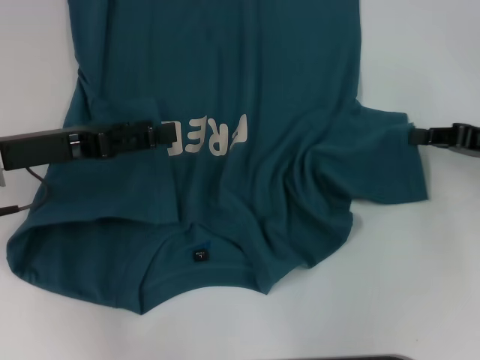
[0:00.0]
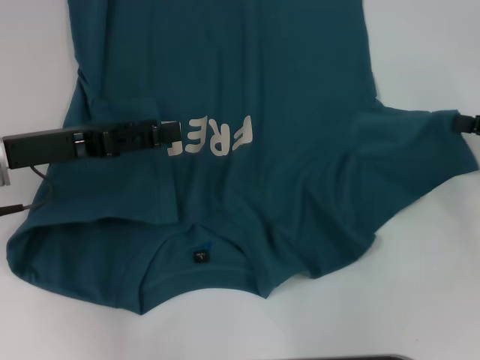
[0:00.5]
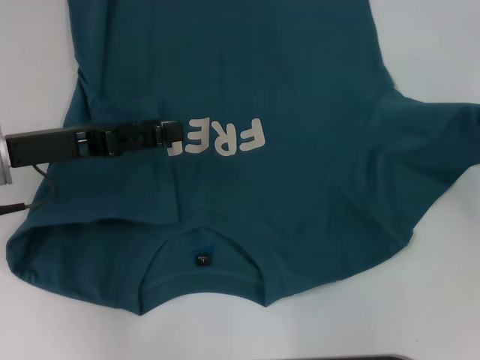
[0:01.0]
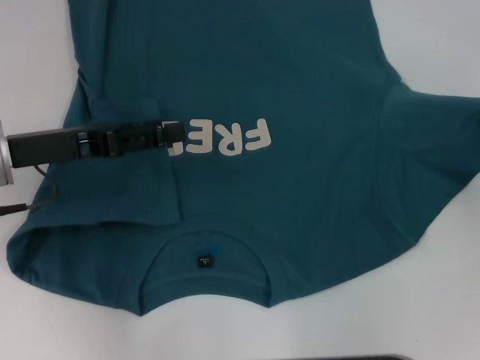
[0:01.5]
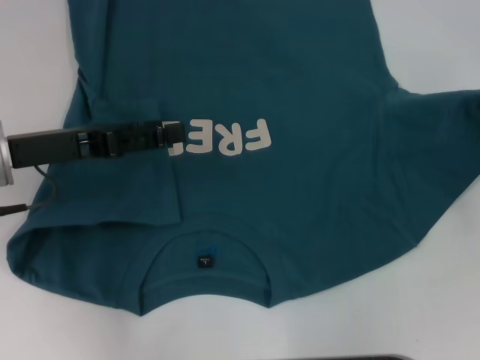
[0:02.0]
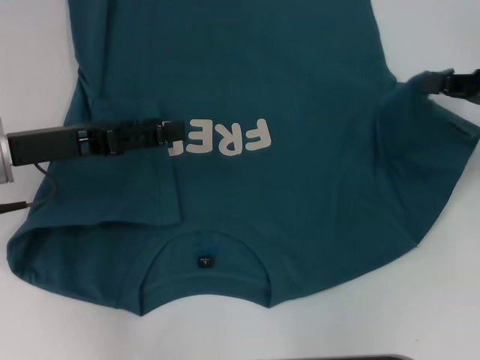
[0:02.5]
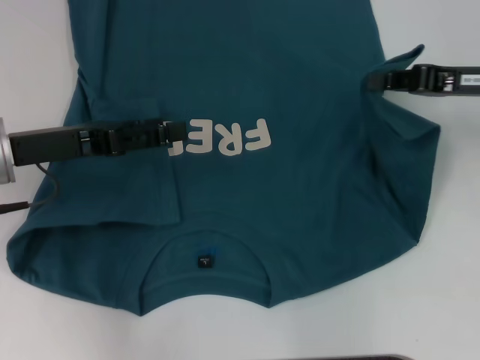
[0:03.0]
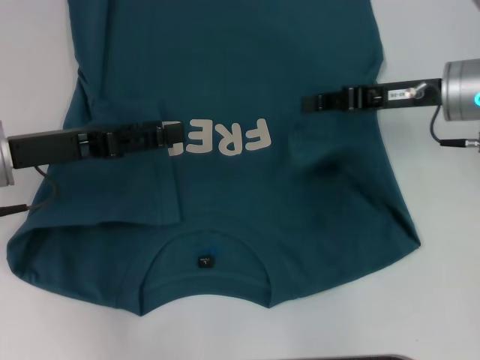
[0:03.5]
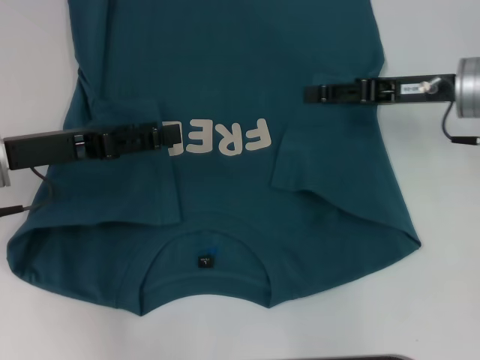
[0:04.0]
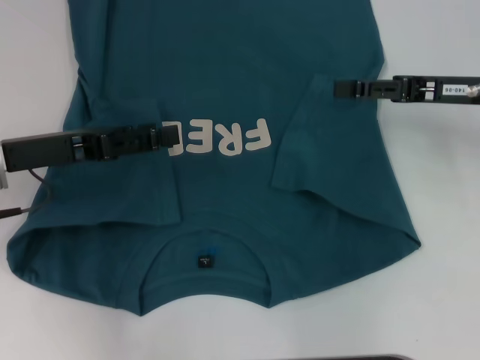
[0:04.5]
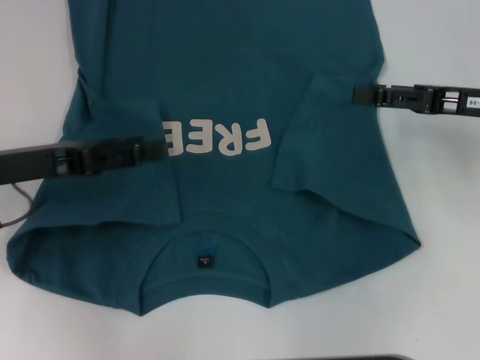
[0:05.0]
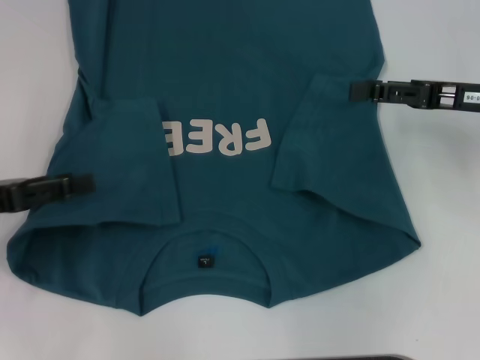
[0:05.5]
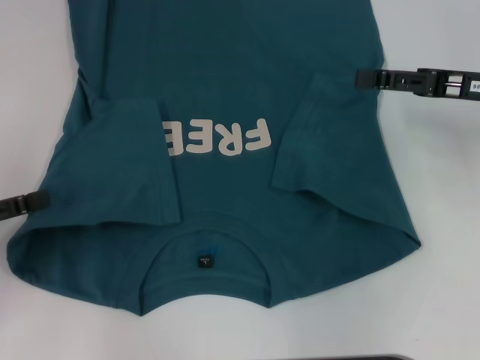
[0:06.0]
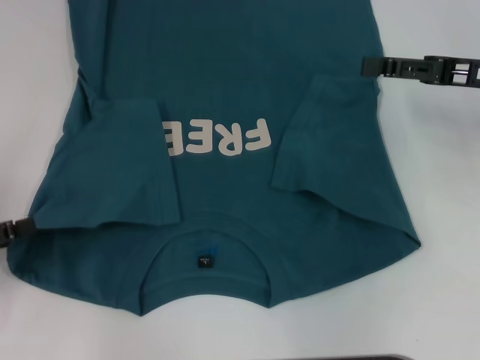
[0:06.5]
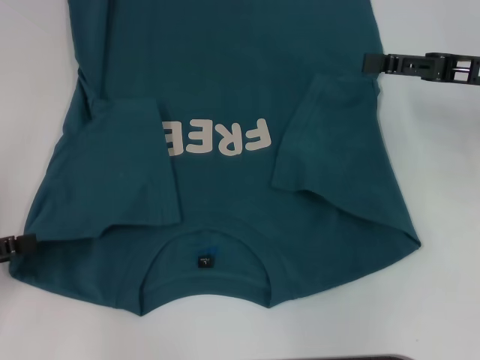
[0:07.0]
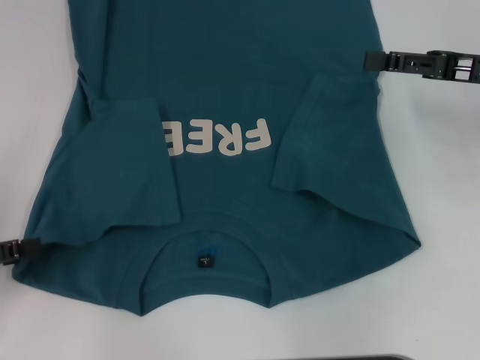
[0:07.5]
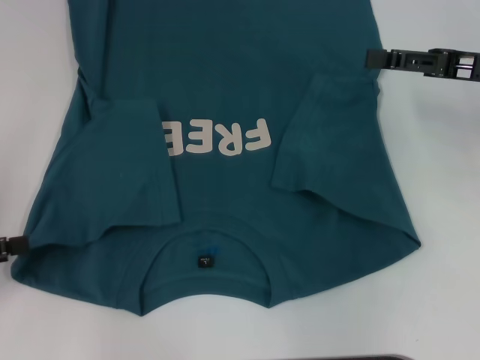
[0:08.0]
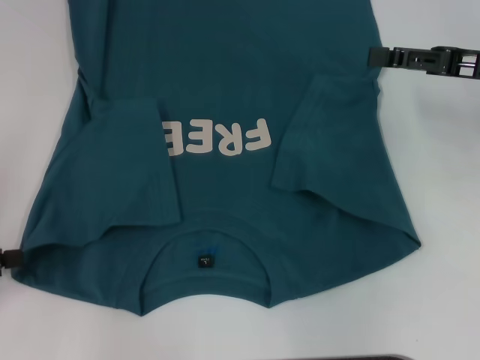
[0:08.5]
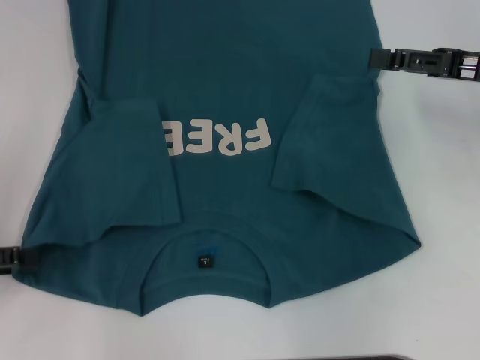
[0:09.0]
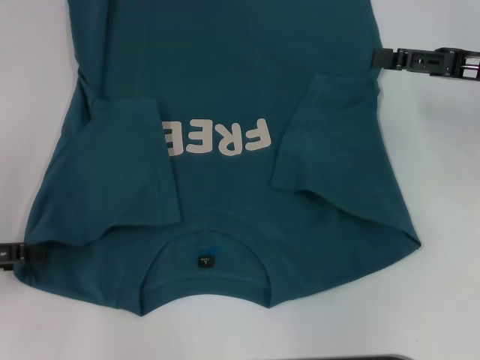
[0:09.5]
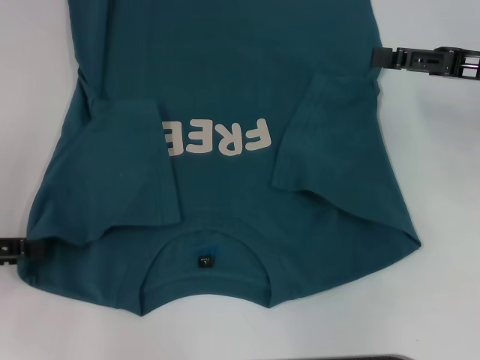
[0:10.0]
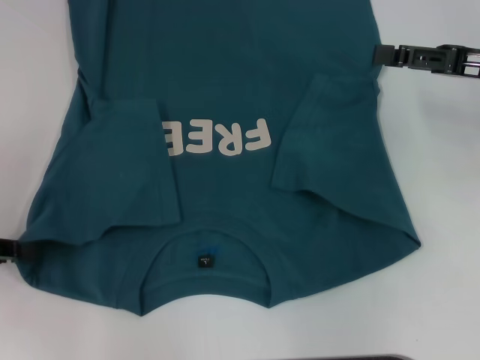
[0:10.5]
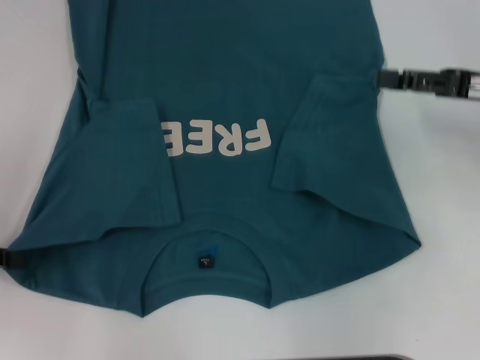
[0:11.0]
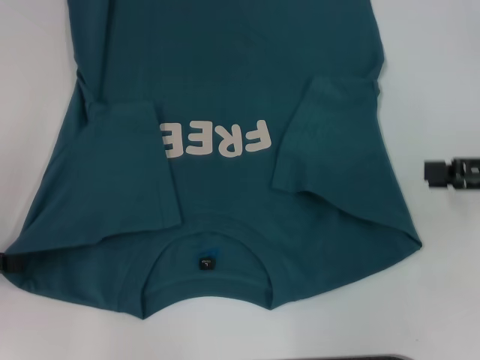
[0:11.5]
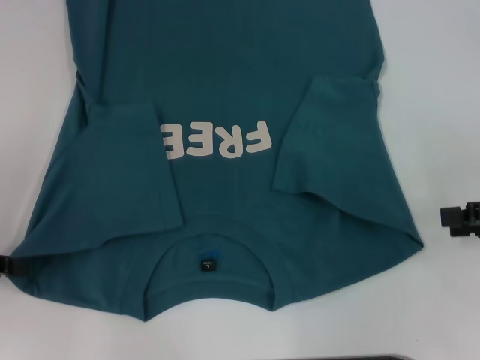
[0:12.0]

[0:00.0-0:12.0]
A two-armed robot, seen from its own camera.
Step, 0:00.0 to 0:03.5: Fold the bottom right sleeve to the right.
Step, 0:04.0 to 0:10.5: Grab the bottom left corner with your left hand.
0:00.0 to 0:02.0: The right gripper travels to the right by about 5 cm.
0:02.0 to 0:04.0: The right gripper moves to the left and forward, about 15 cm, and opens its fingers.
0:04.0 to 0:06.0: The right gripper moves about 5 cm, while the left gripper moves to the left and backward, roughly 15 cm.
0:06.0 to 0:08.0: The grippers move only a little.
0:08.0 to 0:10.0: The grippers stay close to where they were, moving slightly.
0:10.0 to 0:12.0: The left gripper closes up. Meanwhile the right gripper heads backward and to the right, covering roughly 10 cm.

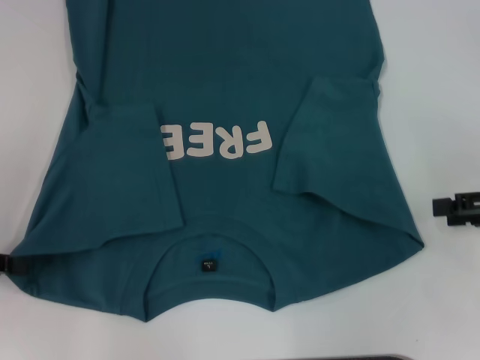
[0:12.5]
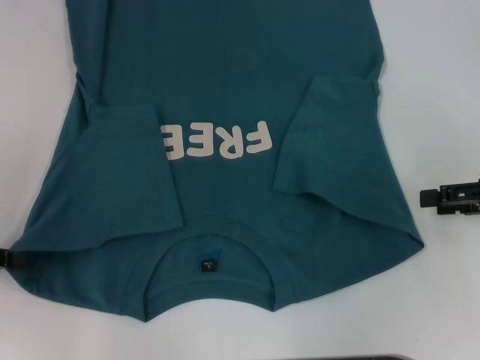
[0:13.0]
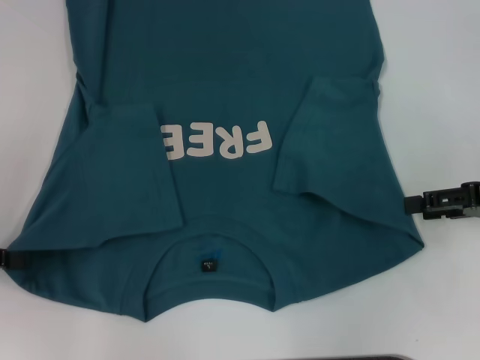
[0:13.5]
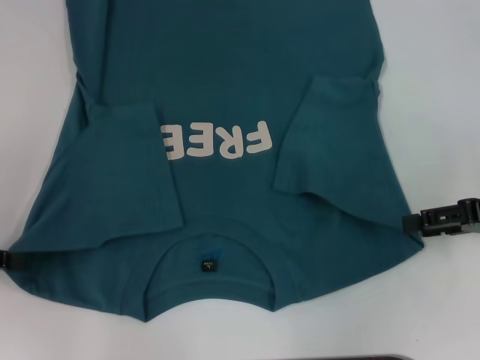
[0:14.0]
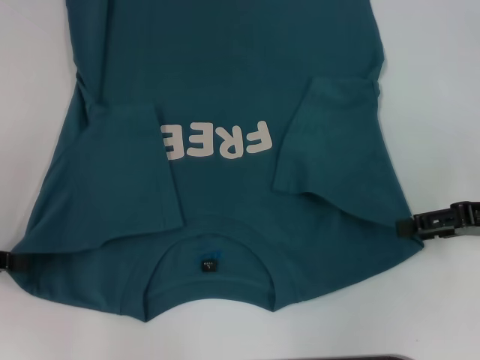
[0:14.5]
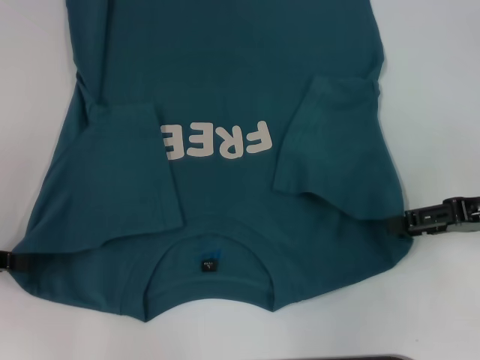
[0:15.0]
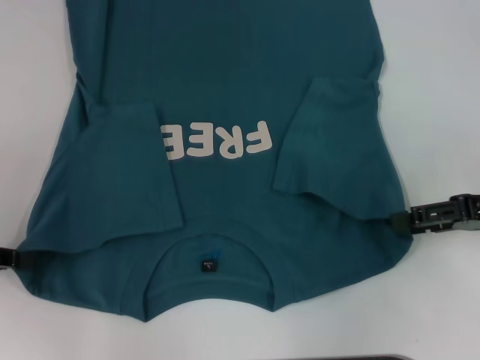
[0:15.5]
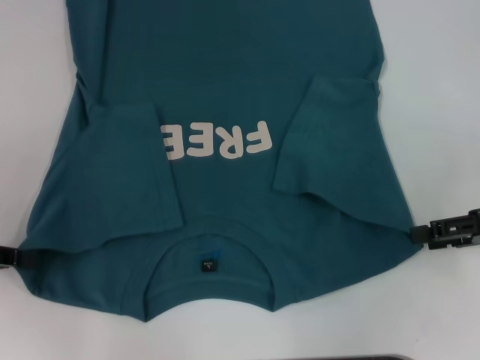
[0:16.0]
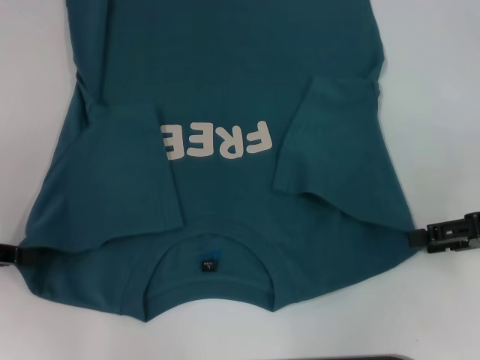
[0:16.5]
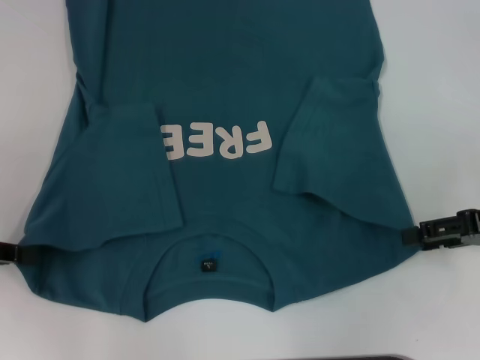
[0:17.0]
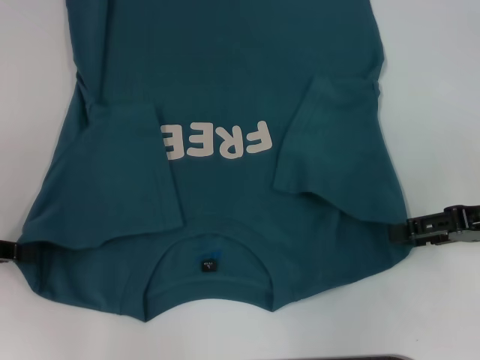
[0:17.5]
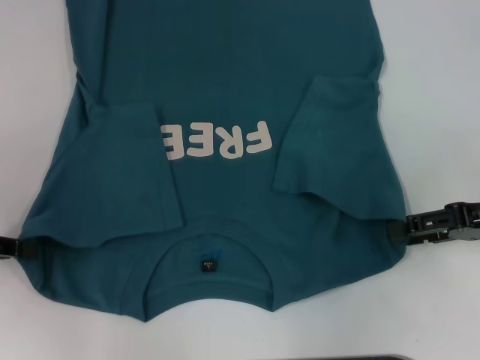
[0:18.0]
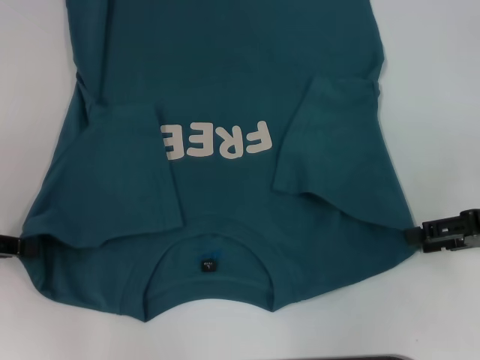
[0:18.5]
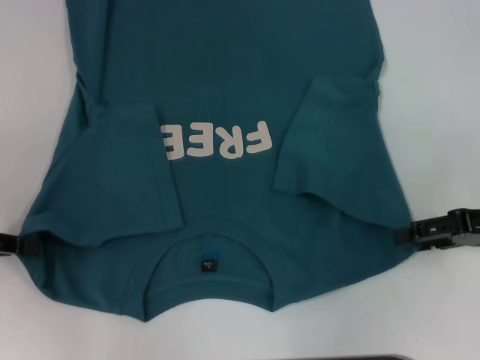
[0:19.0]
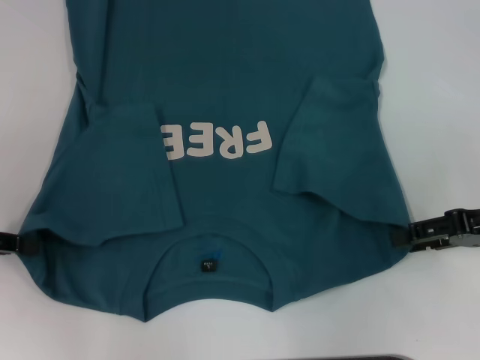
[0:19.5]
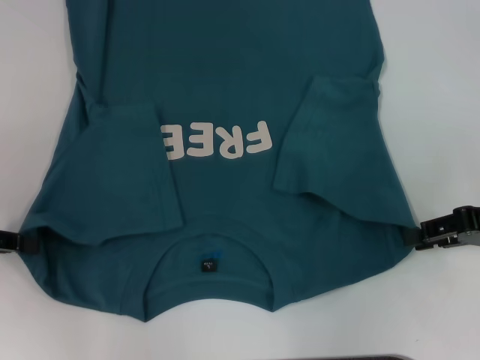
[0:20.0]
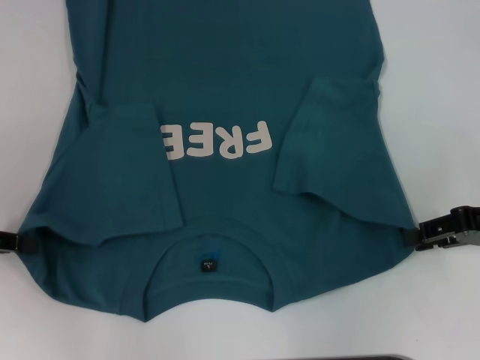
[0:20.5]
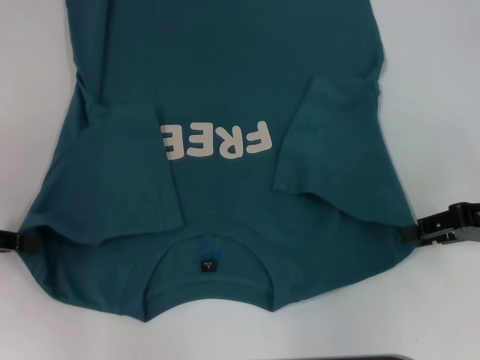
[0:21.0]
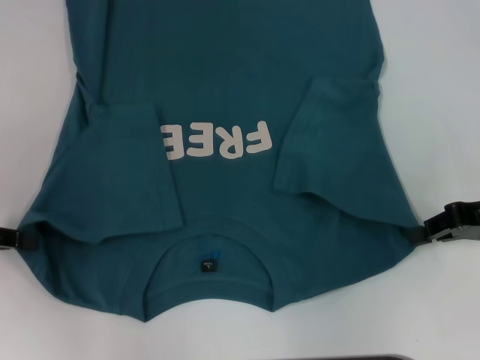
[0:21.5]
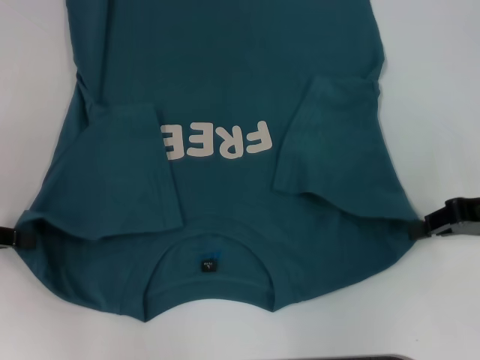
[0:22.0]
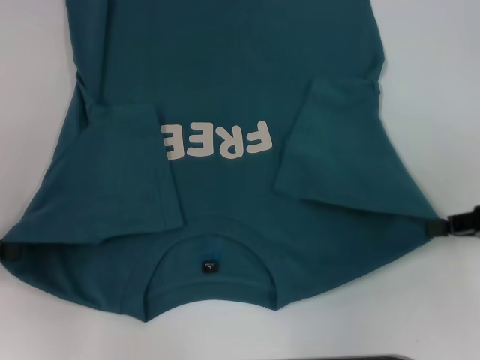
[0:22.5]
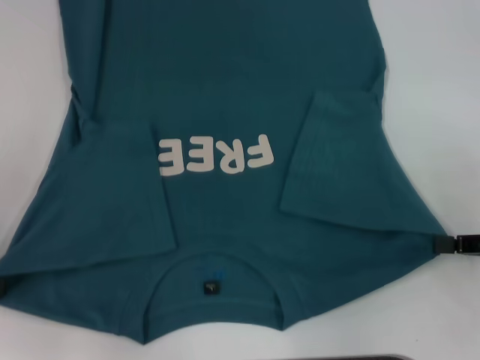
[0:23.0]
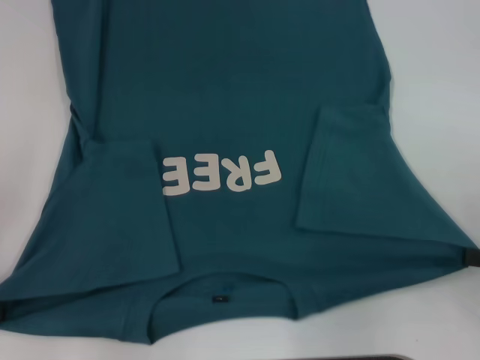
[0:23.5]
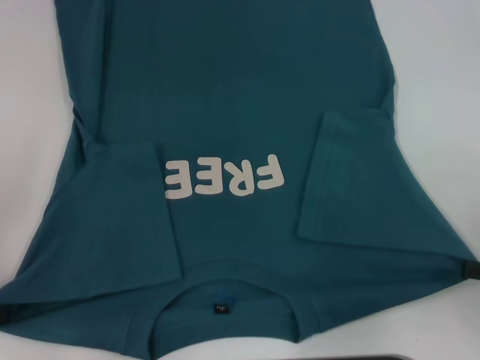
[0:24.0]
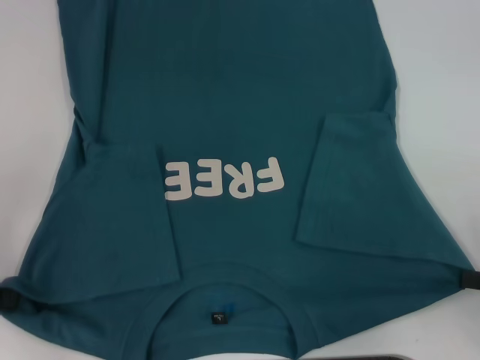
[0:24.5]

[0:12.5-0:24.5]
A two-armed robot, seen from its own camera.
Step, 0:12.5 to 0:16.0: Grab the bottom right corner with your right hand.
0:12.5 to 0:20.5: The grippers make only small movements.
0:20.5 to 0:22.5: The right gripper closes its fingers.
0:22.5 to 0:24.5: The right gripper shifts approximately 10 cm backward.

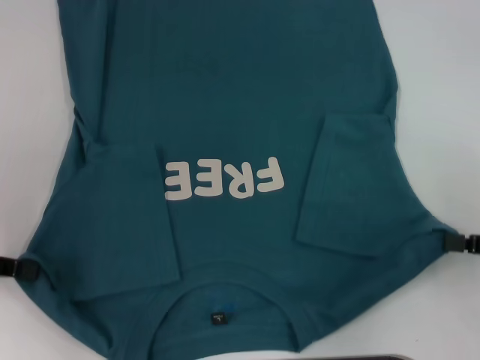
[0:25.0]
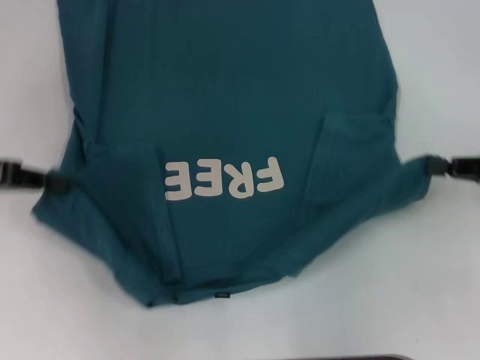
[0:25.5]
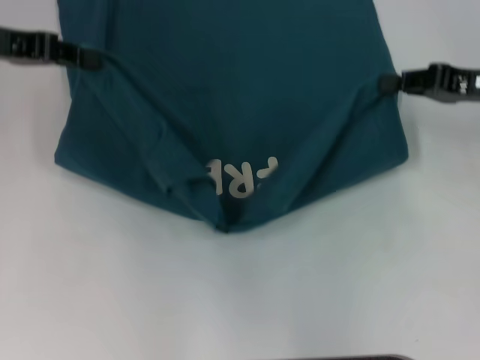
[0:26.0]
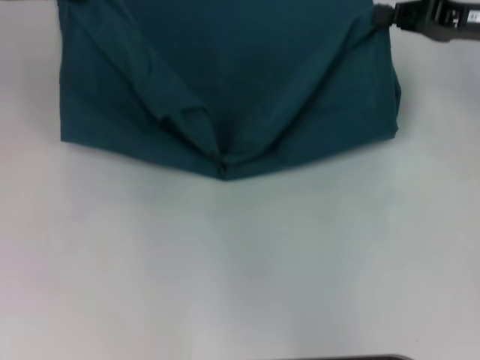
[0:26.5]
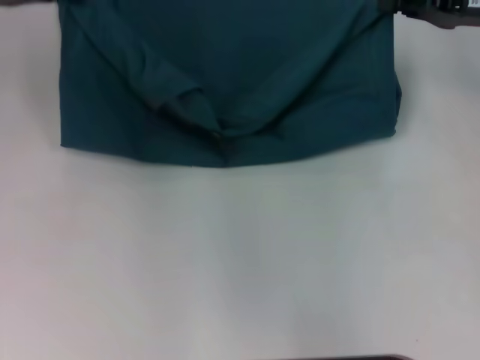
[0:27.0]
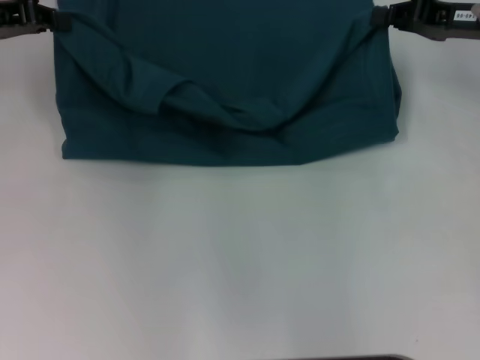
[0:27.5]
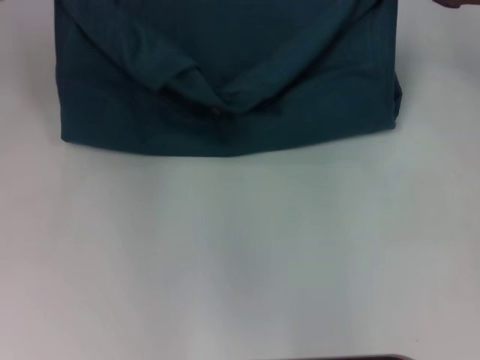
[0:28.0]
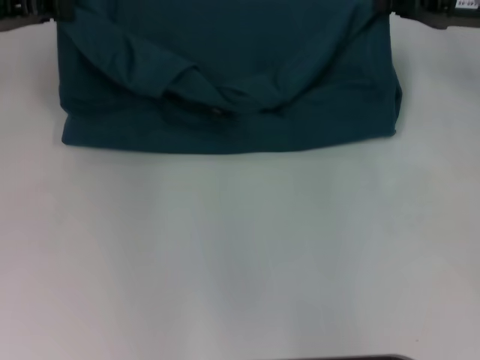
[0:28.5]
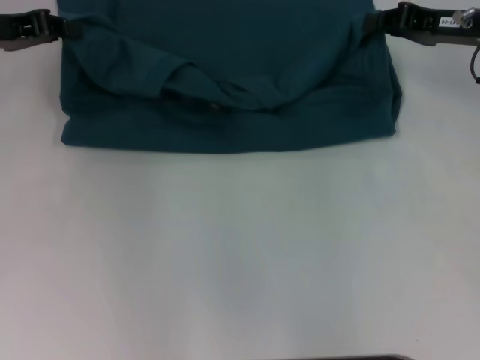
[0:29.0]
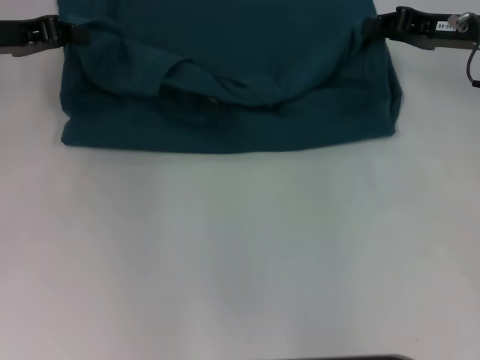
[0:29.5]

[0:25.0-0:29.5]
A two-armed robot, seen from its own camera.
0:25.0 to 0:27.0: The left gripper is displaced forward and upward by roughly 20 cm. Meanwhile the right gripper shifts about 20 cm forward.
0:27.0 to 0:29.5: The left gripper heads downward, covering some 5 cm.
